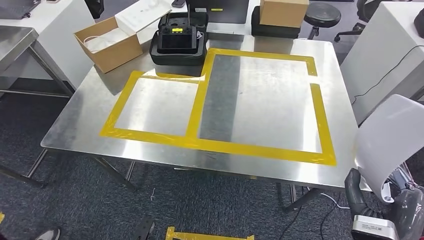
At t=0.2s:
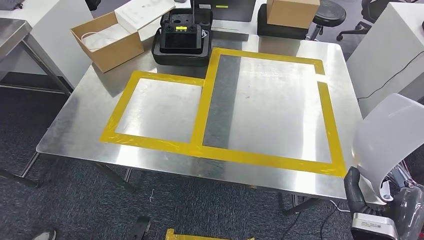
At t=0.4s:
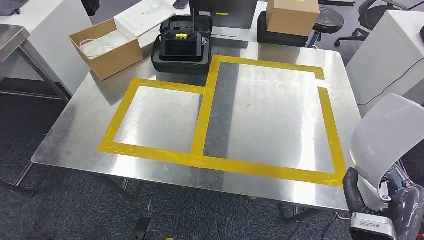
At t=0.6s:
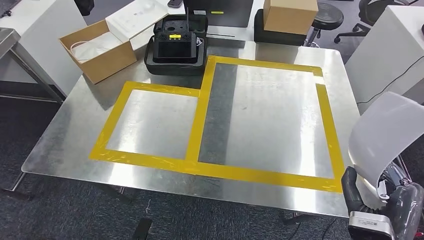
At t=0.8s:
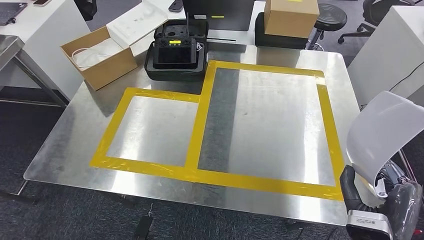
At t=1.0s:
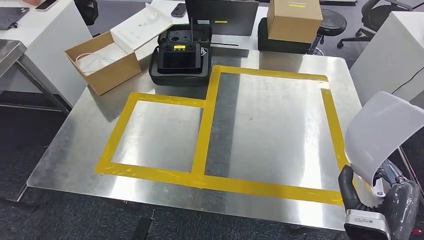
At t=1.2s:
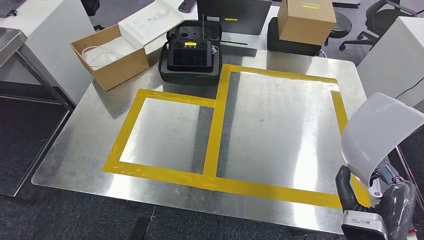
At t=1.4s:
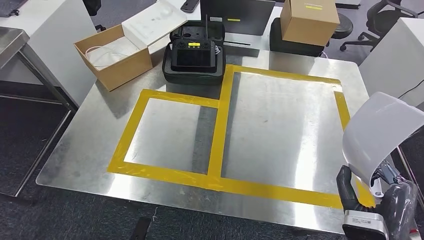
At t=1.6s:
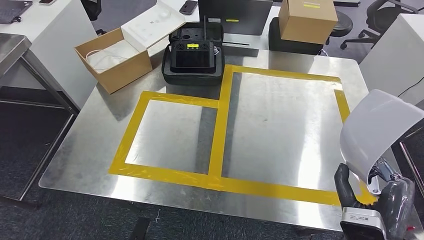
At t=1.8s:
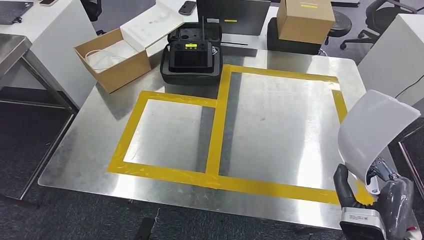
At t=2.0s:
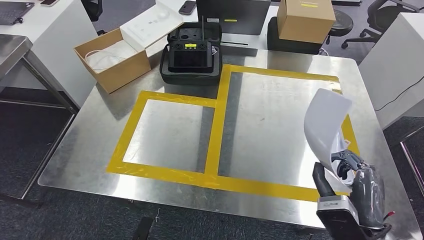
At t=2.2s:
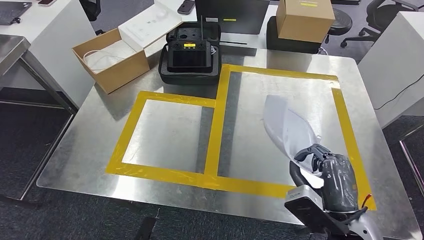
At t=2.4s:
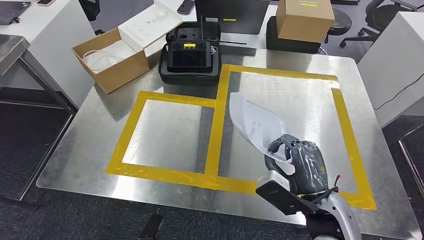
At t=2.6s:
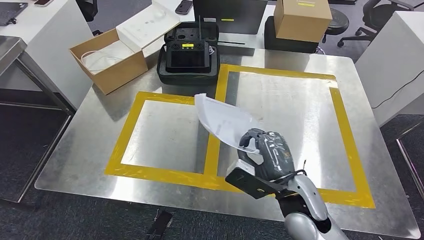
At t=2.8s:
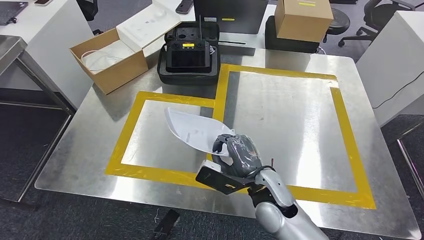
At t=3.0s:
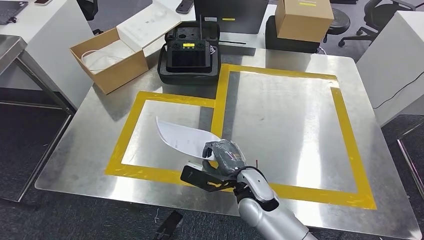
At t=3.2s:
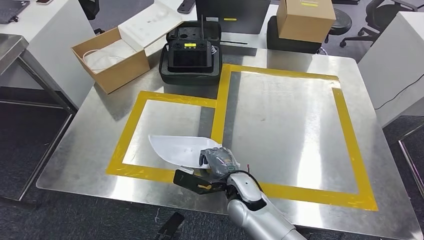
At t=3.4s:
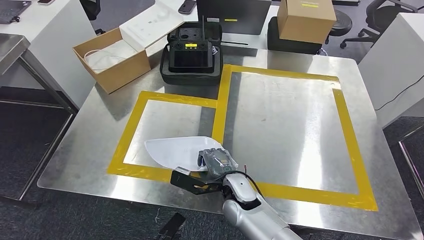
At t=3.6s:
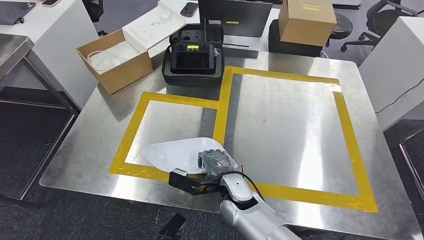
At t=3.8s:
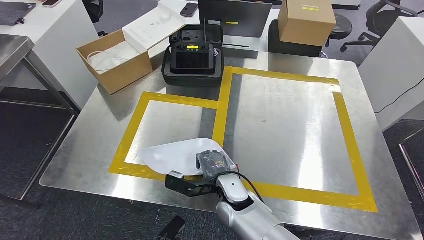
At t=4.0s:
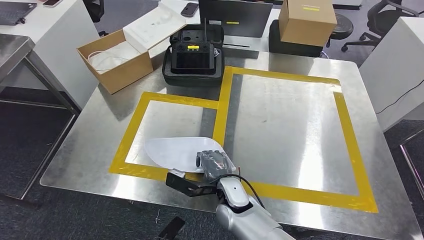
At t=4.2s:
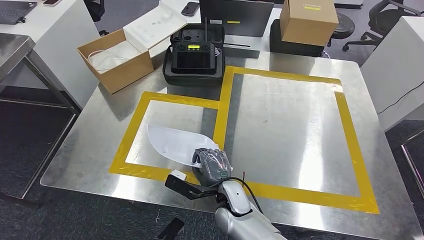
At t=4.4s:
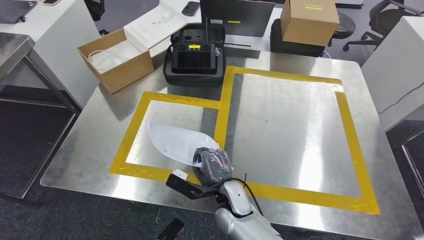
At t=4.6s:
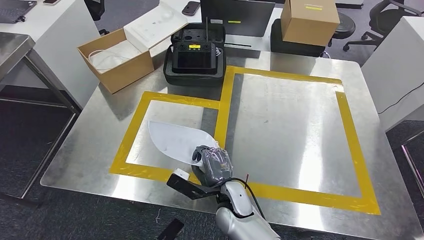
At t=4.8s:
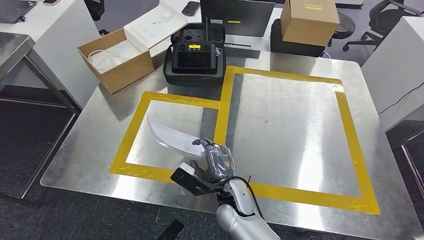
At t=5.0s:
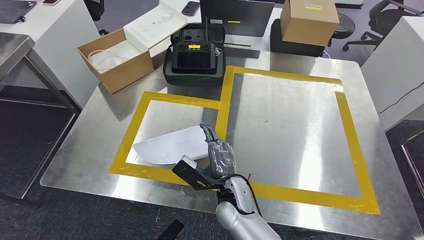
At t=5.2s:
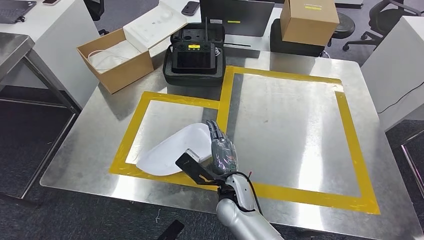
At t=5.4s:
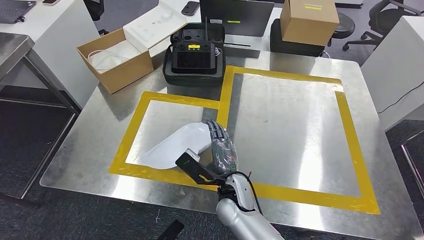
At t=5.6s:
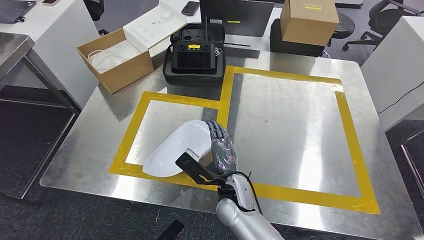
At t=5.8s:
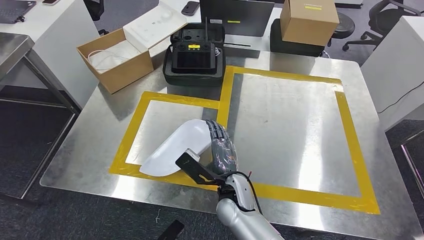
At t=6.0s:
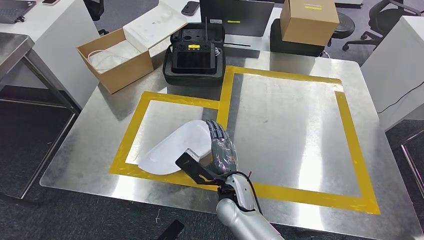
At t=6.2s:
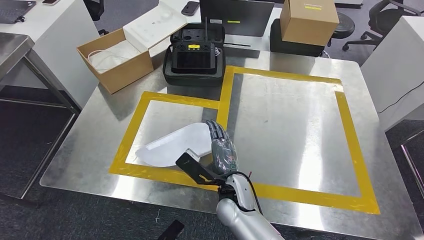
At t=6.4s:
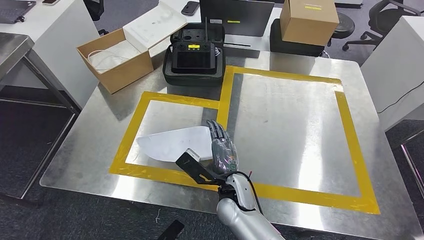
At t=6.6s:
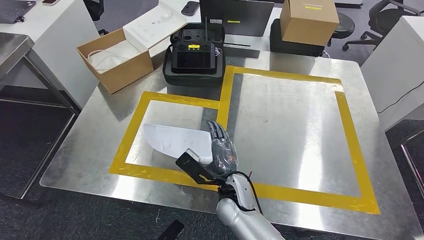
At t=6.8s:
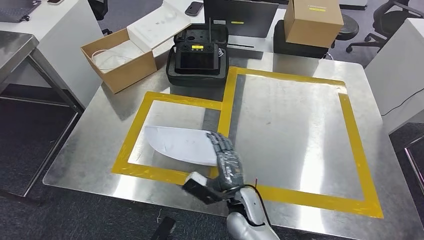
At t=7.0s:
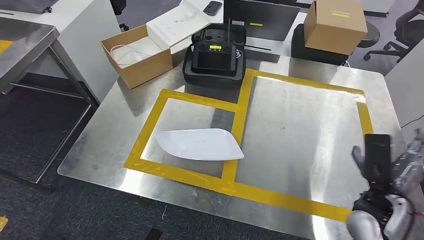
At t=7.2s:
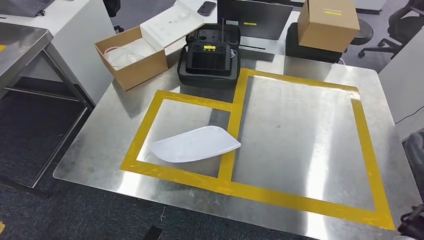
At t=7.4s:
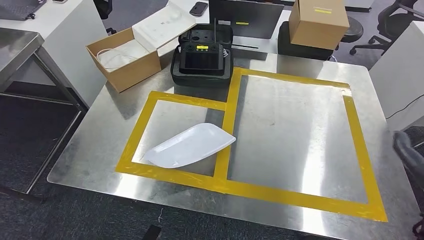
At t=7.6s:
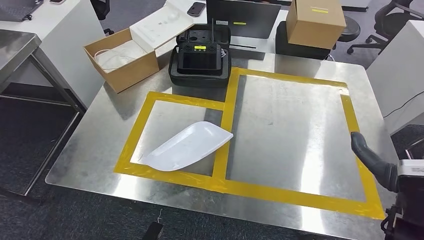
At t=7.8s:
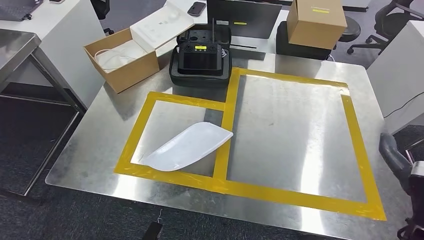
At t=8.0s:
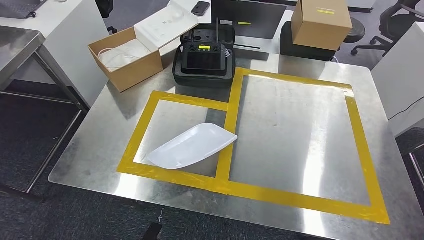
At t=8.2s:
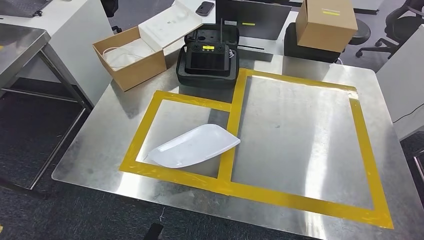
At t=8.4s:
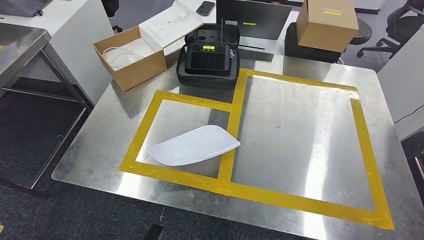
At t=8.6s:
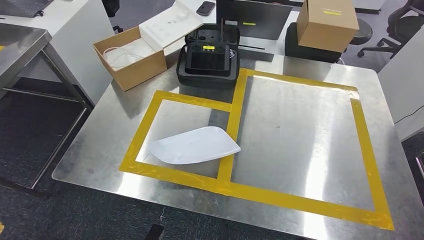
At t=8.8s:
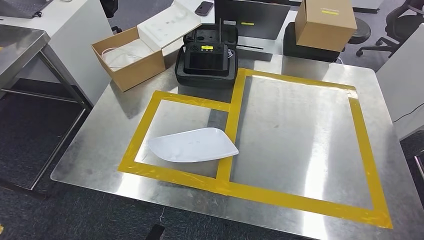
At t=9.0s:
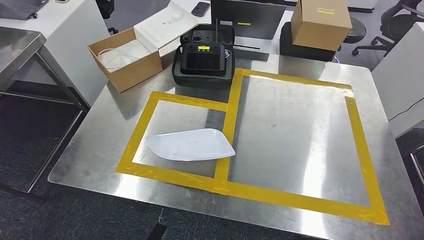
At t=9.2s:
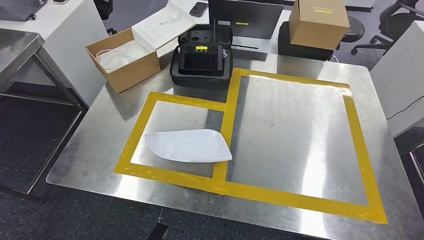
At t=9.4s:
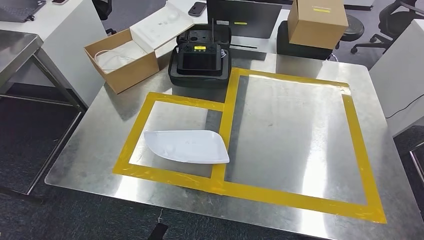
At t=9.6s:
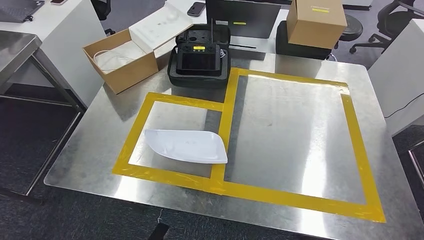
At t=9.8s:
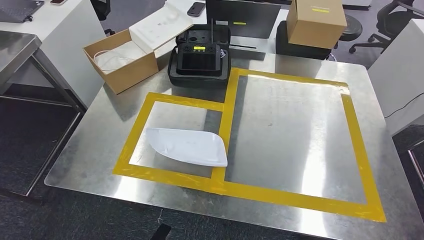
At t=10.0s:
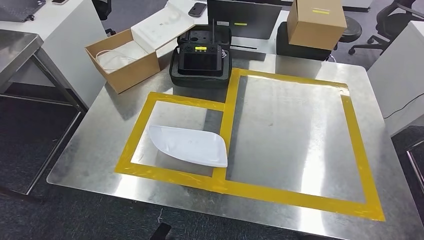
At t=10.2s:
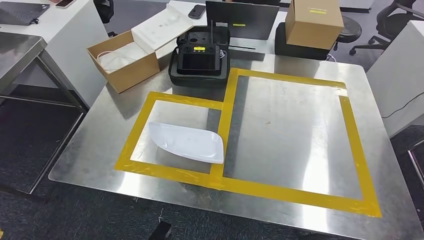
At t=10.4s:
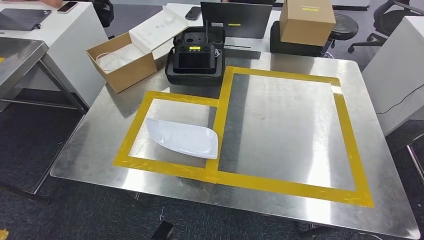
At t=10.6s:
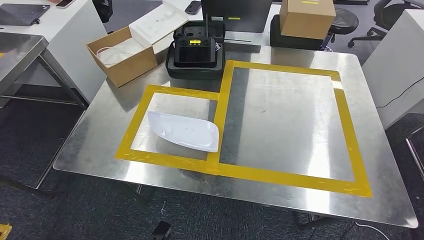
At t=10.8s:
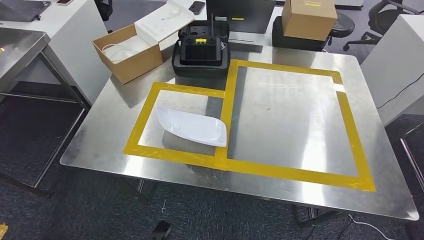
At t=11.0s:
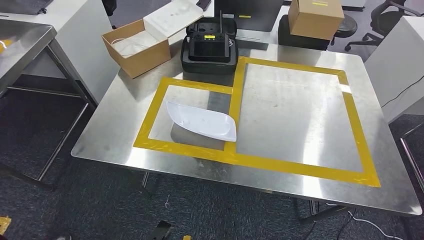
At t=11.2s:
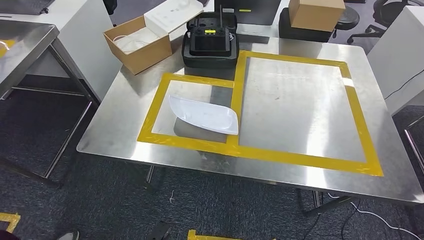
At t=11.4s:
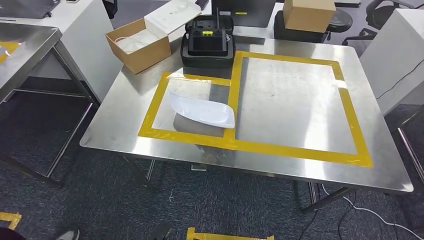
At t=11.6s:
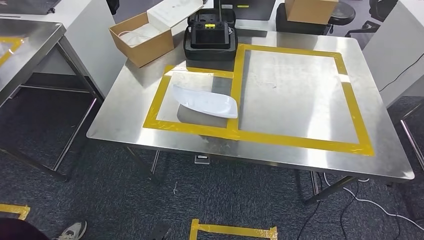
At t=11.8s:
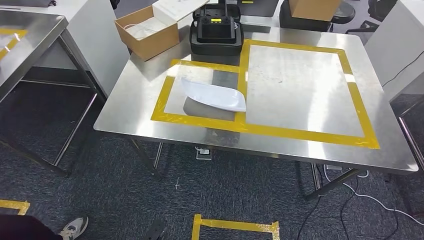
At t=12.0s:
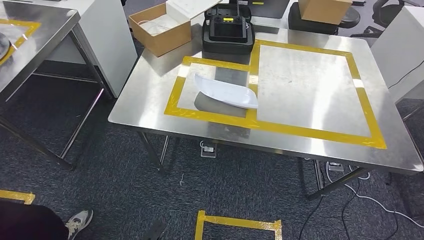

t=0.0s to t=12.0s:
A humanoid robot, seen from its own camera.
Step, t=0.0s to t=9.2s: Insert the small component into the corresponding slot on the workbench.
t=4.4s to t=6.0s: There are only small adjustments of the hands.

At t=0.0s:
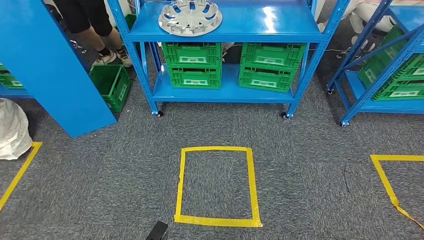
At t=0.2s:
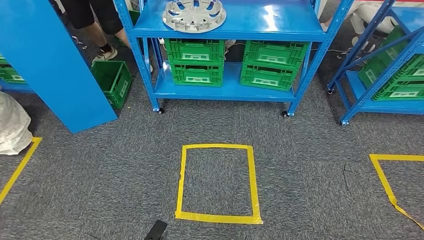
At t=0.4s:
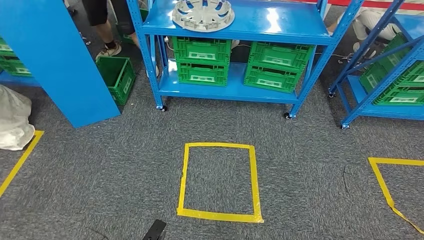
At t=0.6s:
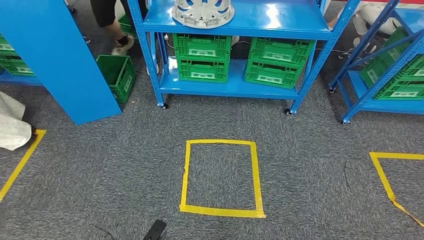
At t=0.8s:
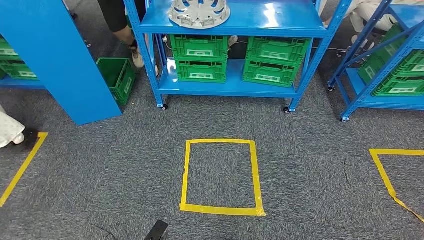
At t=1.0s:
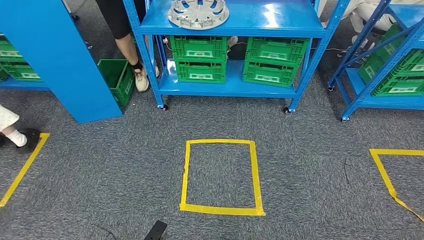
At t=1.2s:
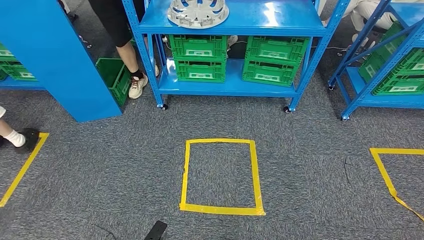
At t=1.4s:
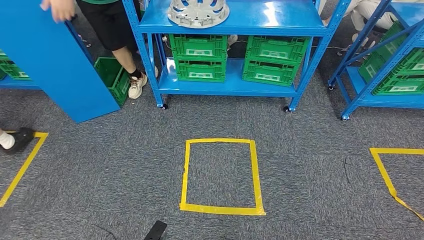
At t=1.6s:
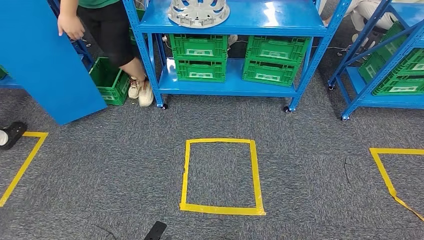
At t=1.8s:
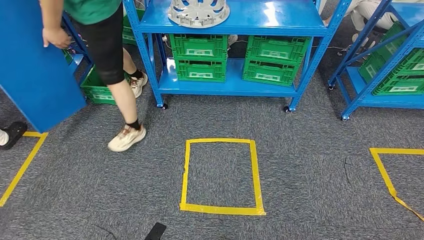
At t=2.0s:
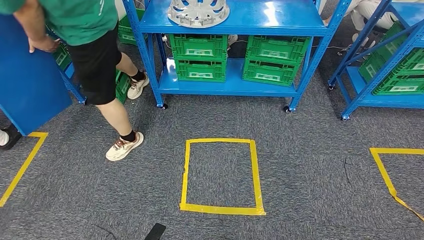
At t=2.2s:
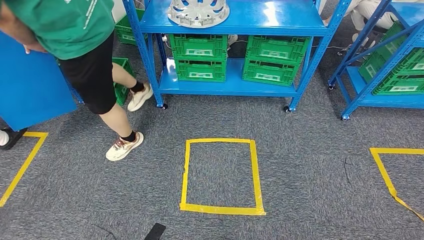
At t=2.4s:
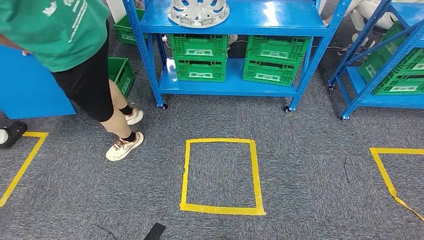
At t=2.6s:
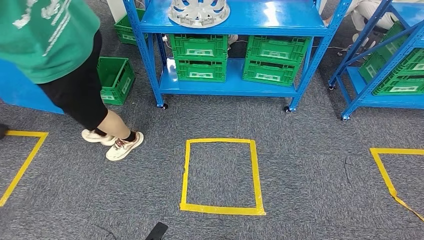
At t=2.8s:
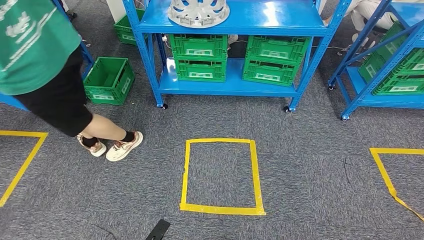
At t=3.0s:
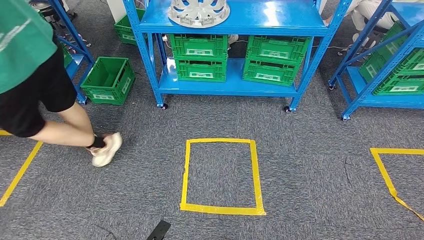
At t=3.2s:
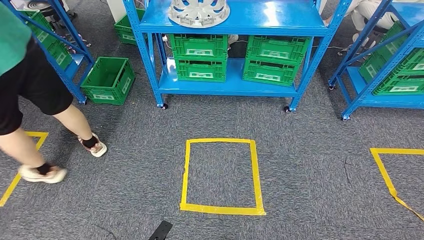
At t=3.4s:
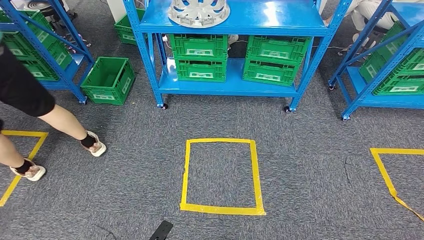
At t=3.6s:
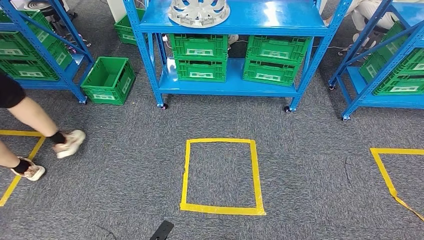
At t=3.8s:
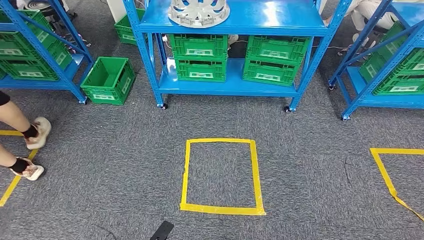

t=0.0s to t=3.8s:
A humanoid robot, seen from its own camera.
Step, t=0.0s to t=3.6s: Move to the initial position at the workbench.
t=1.2s to t=3.8s: There are only small adjustments of the hands.
